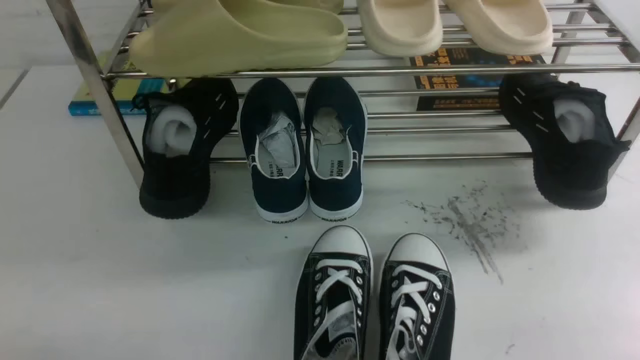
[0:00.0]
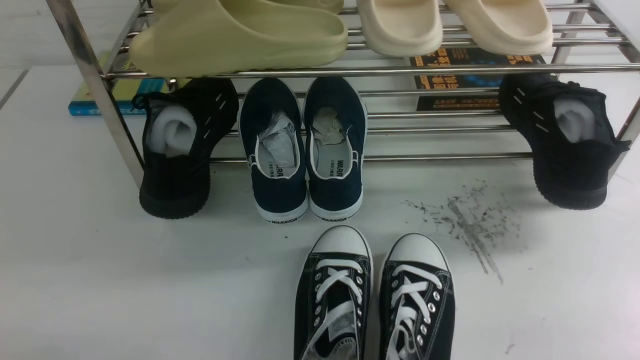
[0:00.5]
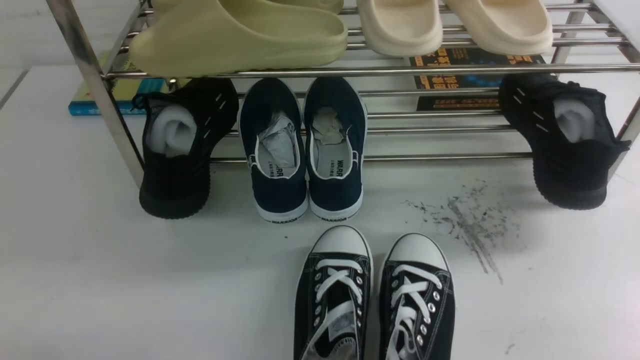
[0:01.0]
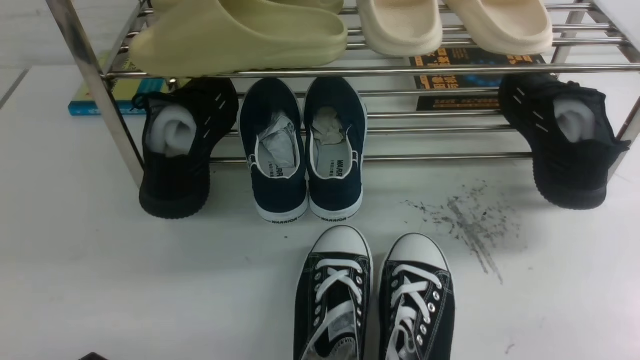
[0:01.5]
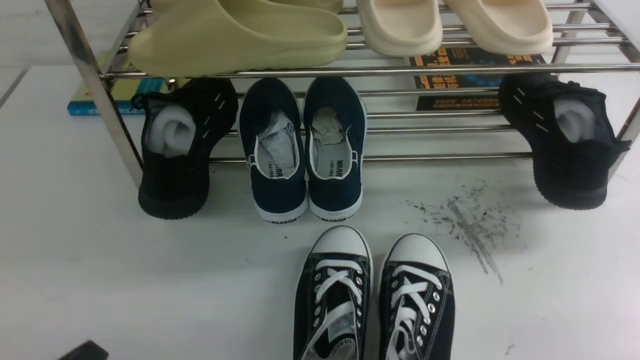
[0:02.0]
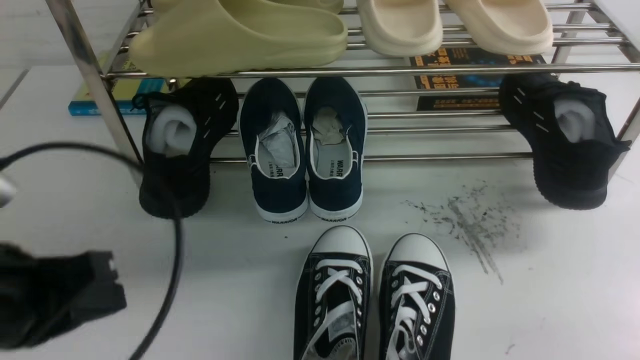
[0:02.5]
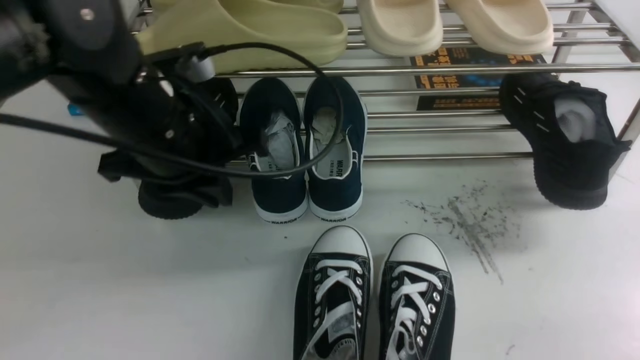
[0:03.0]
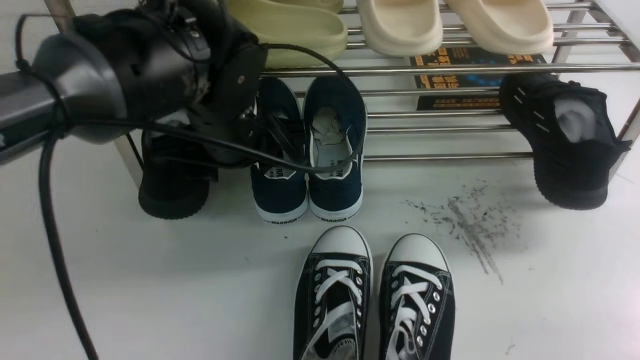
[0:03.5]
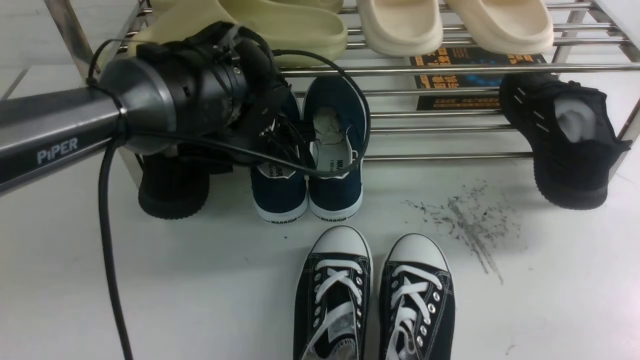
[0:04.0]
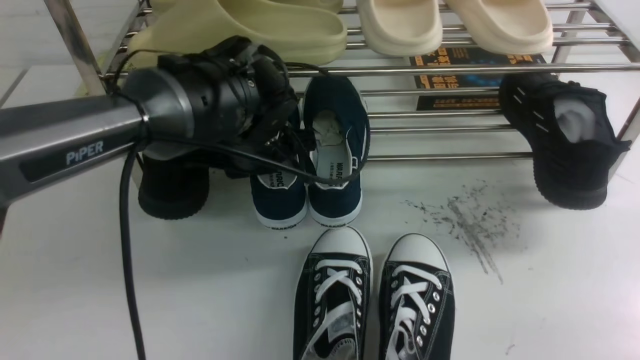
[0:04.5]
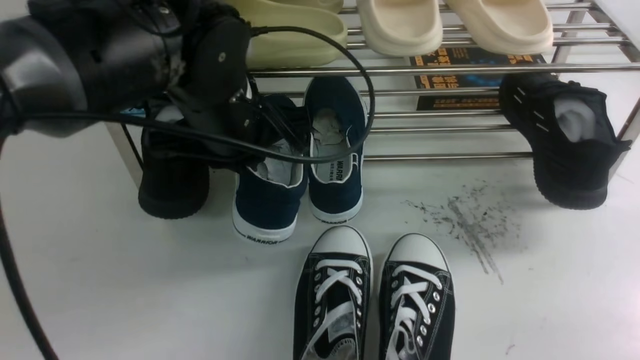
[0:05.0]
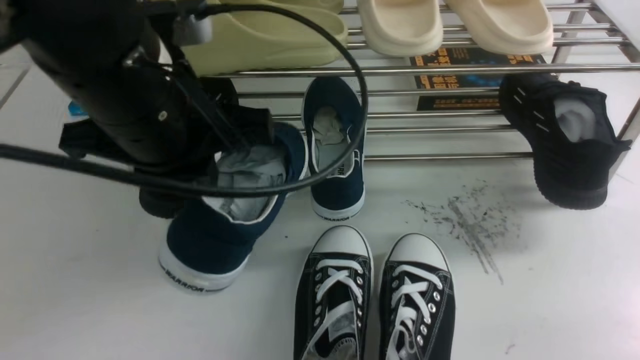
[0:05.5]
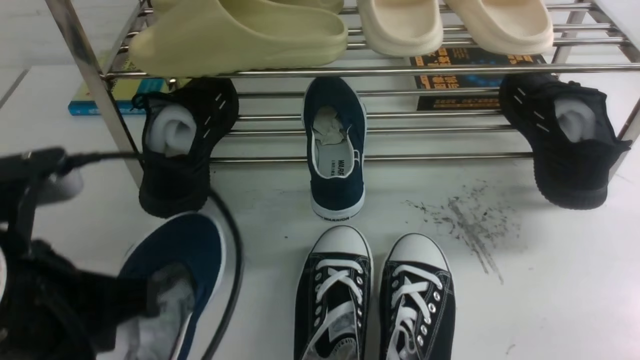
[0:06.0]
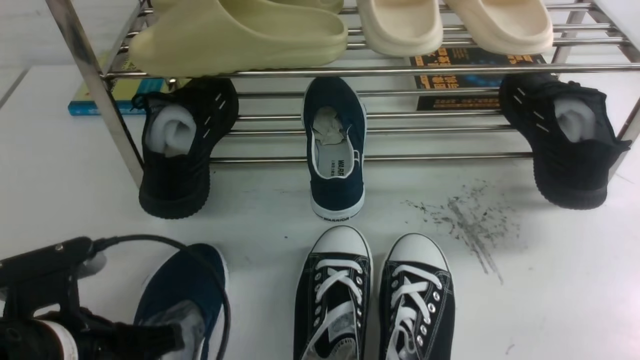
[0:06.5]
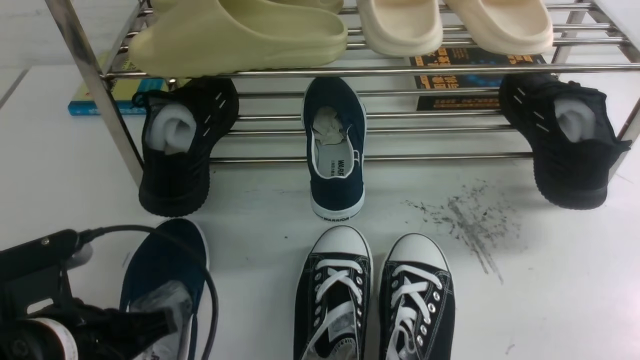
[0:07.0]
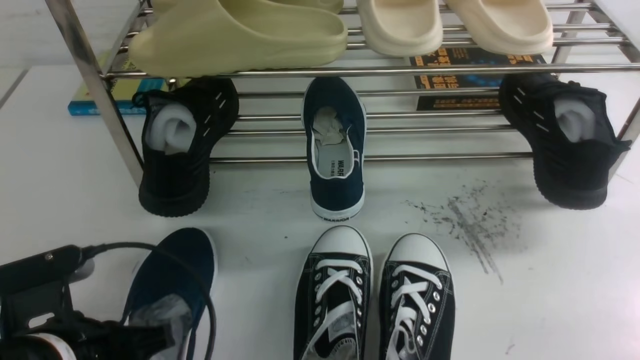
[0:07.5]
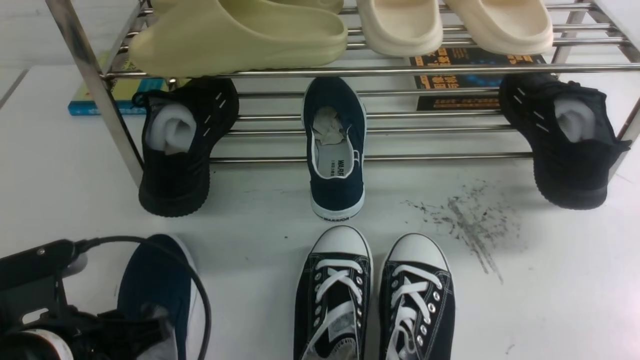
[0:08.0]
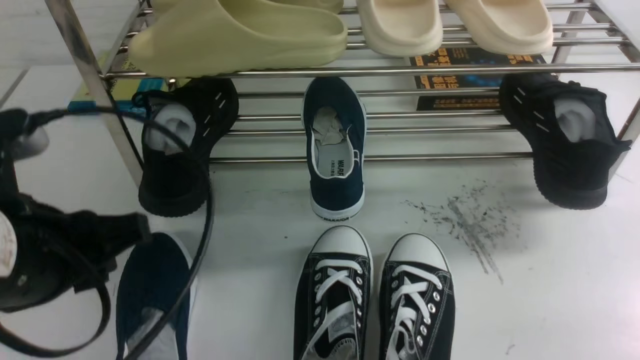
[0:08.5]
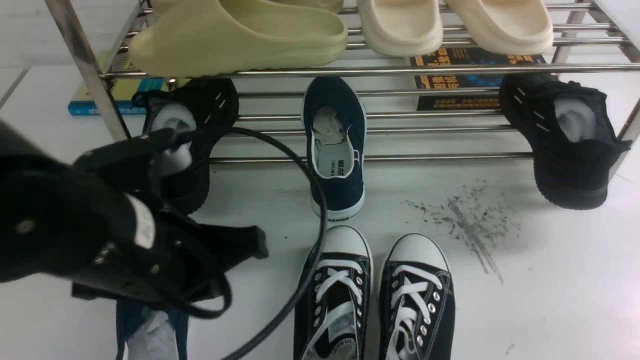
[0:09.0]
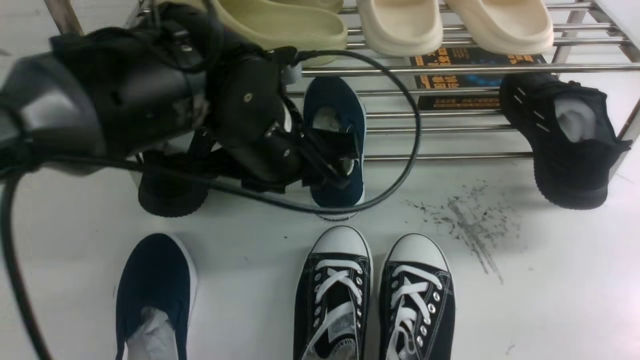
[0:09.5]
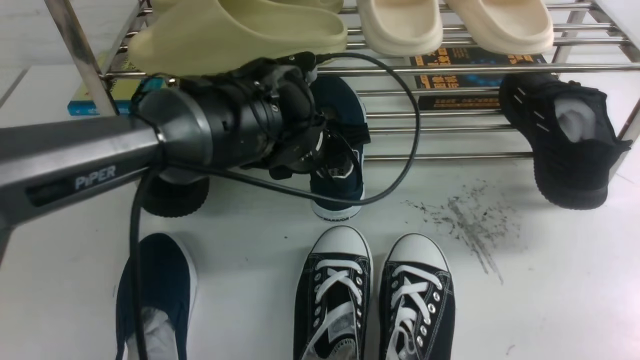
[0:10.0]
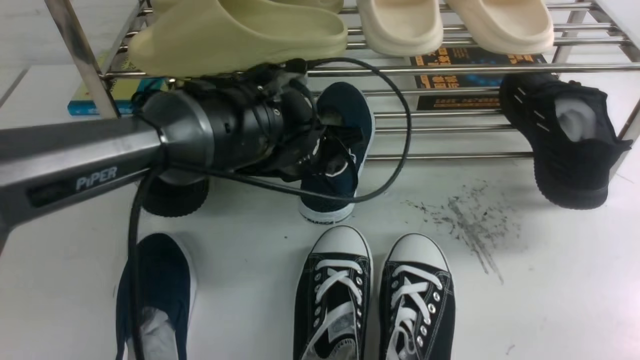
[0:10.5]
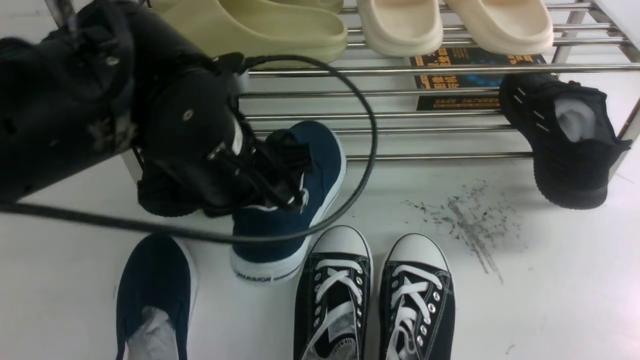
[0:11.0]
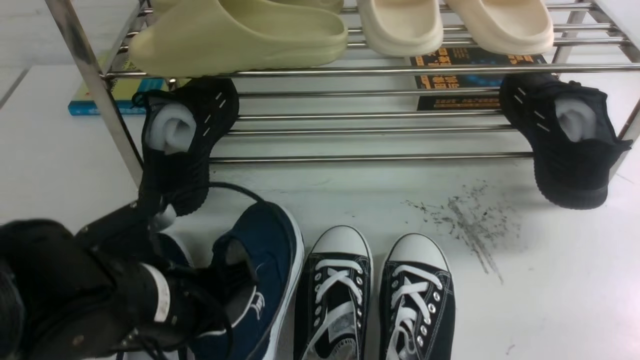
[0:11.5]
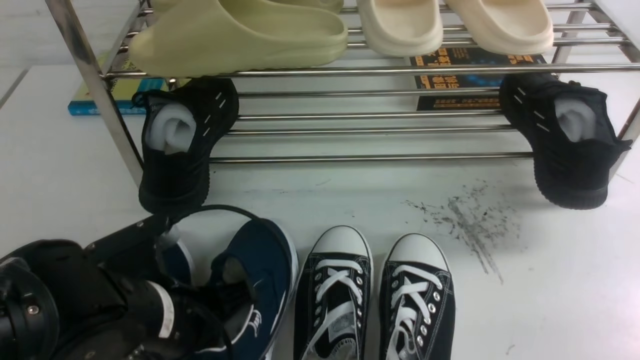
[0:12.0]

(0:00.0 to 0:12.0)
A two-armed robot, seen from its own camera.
Step, 0:00.0 - 0:04.5: use the left arm to clamp a shoe on the left side of the shoe rack.
Step, 0:05.0 - 0:08.0: Use your left arm to remove the clamped shoe from the shoe rack and put it down.
Step, 0:08.5 - 0:10.5: use the left arm to clamp a shoe in the middle of the shoe rack.
0:02.0 - 0:04.0: The left gripper travels forward and to the right by about 35 cm, and opens its fingers.
0:04.0 - 0:06.0: The left gripper travels backward and to the left by approximately 25 cm, and closes its fingers.
0:06.0 - 0:08.0: The left gripper heads downward, covering about 10 cm, and opens up.
0:08.0 - 0:10.0: The left gripper is displaced forward and to the right by roughly 25 cm, and closes and opens again.
0:10.0 - 0:12.0: The left gripper heads backward and to the left, covering about 20 cm, and closes.

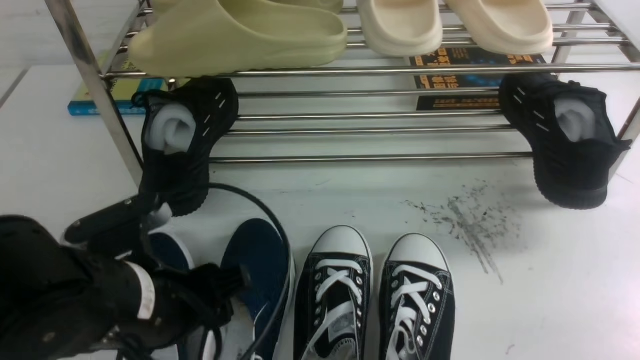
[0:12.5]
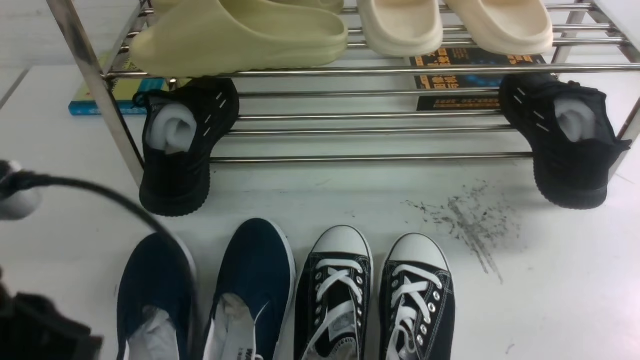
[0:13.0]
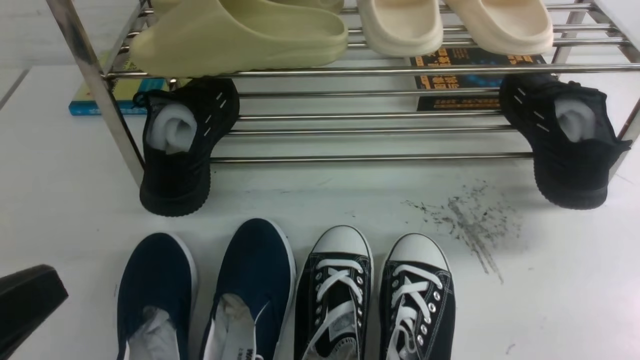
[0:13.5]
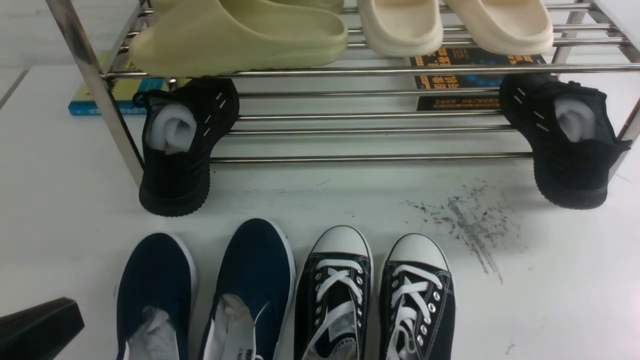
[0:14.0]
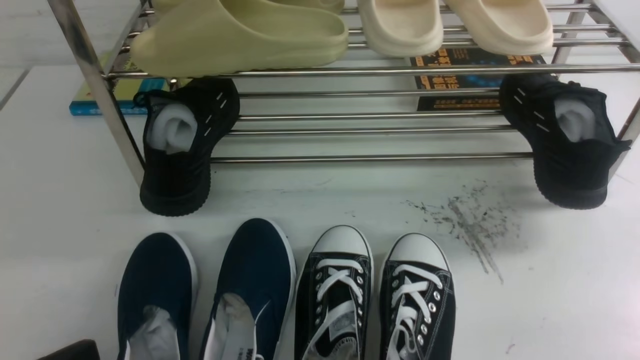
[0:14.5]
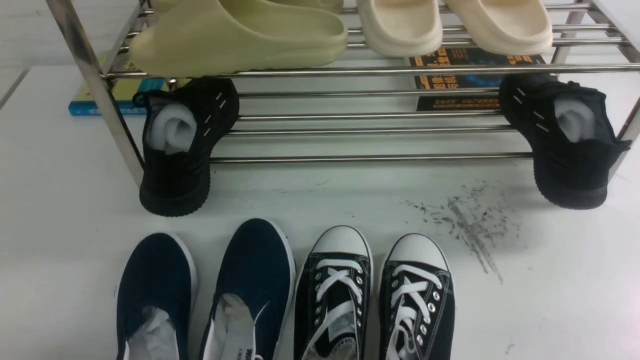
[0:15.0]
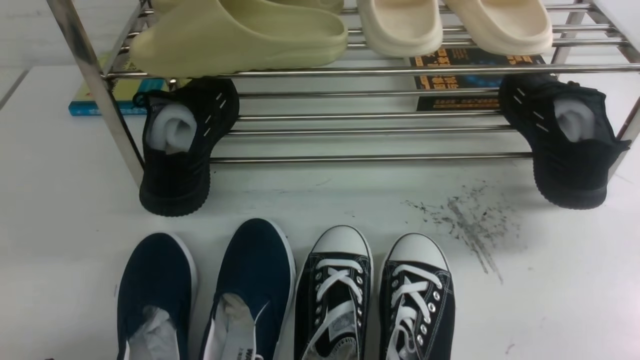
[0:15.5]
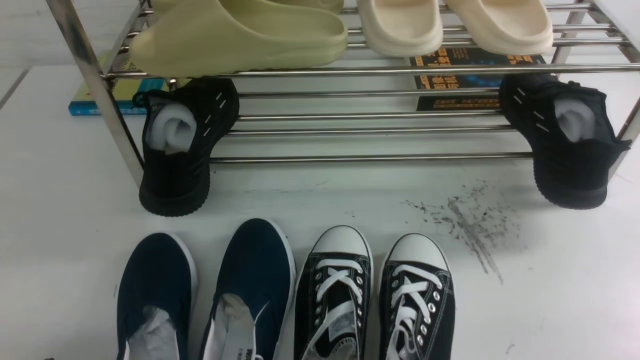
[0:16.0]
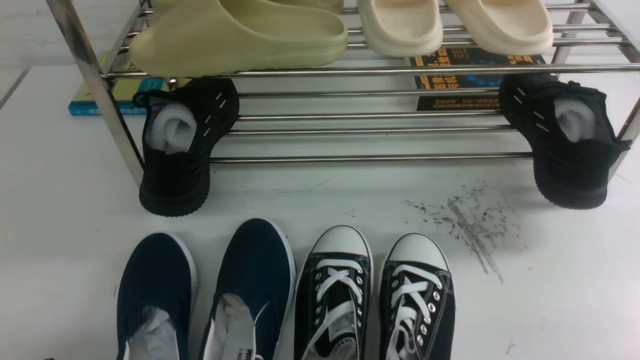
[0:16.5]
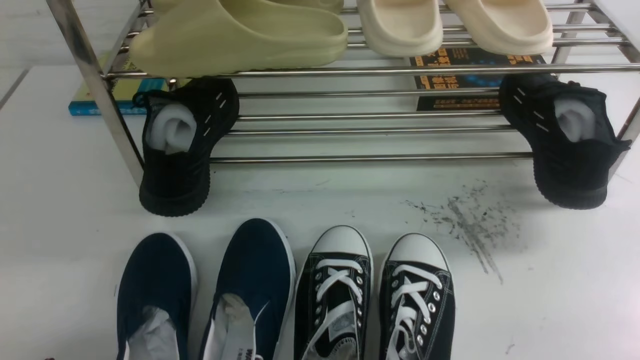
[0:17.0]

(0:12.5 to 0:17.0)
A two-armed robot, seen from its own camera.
0:12.5 - 0:14.5: The left gripper heads backward and to the left, covering roughly 15 cm, and closes its fingers.

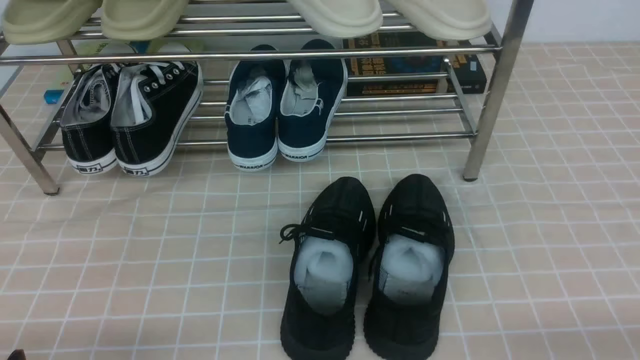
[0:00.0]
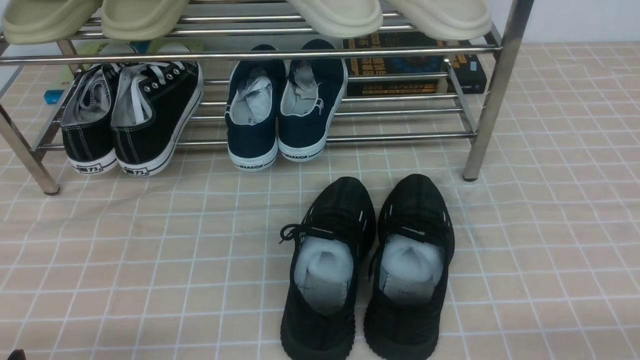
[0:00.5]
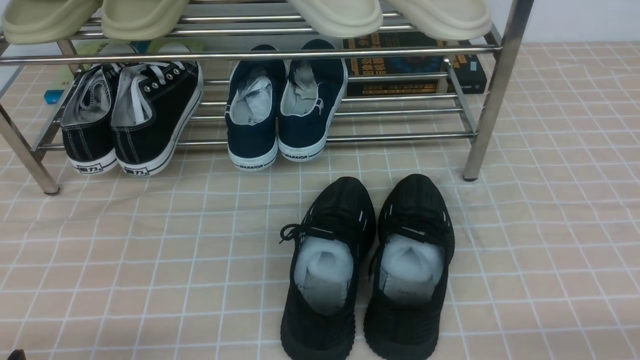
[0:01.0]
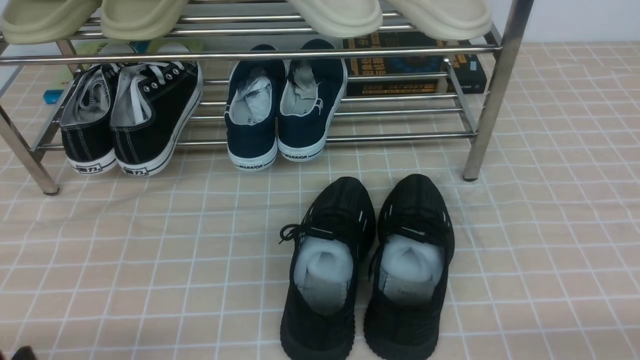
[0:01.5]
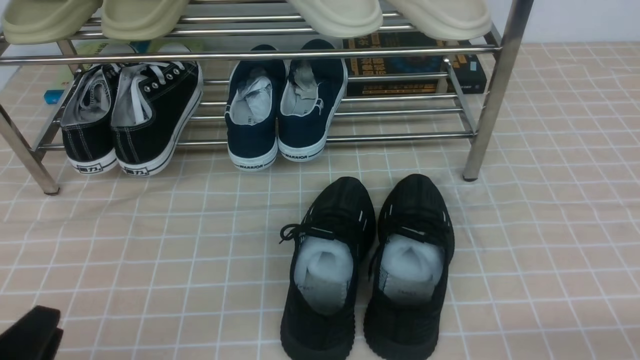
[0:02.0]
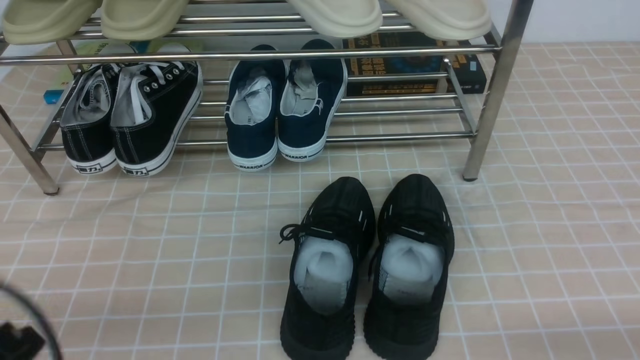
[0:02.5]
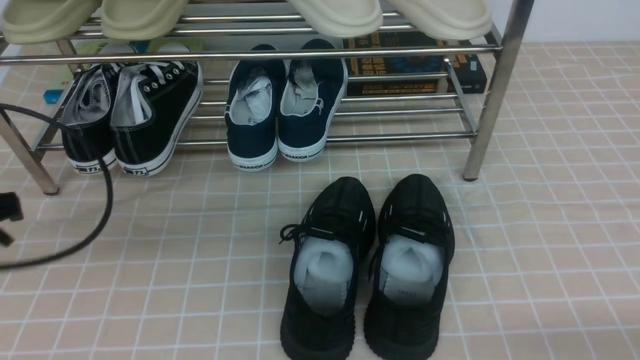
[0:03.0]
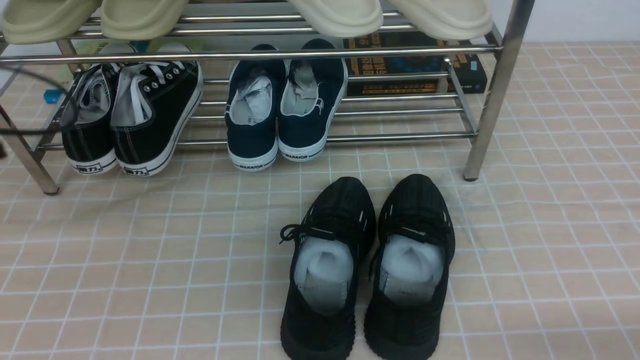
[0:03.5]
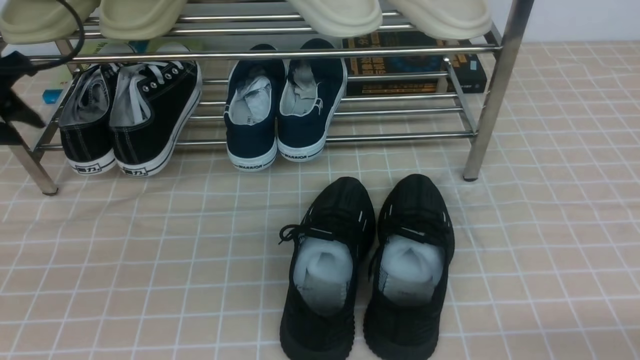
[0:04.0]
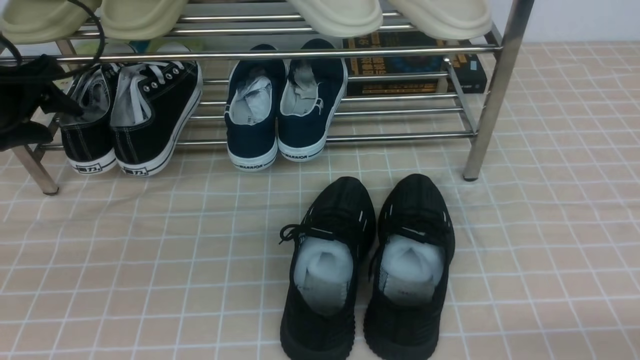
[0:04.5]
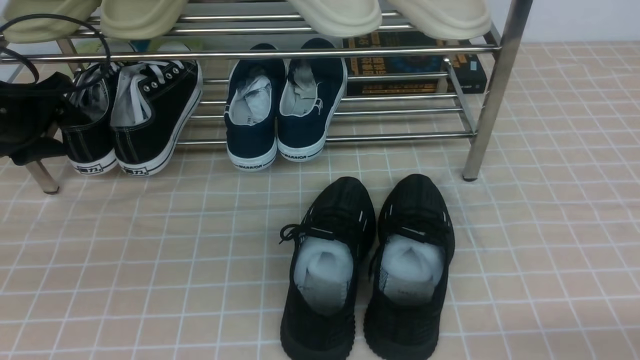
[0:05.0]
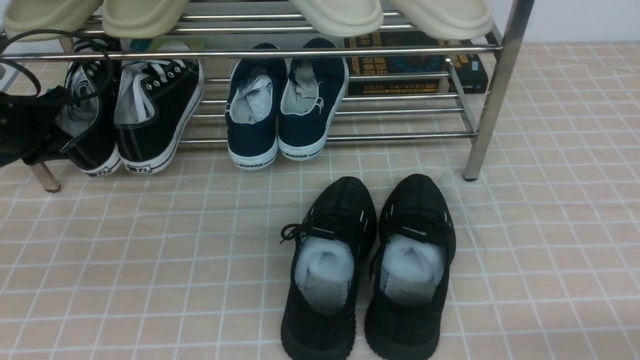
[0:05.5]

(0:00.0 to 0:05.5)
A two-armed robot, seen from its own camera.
Step, 0:00.0 - 0:05.5: use the left arm to clamp a shoe on the left side of the shoe rack.
0:02.0 - 0:03.5: The left gripper moves forward, upward and to the left, roughly 30 cm, and closes.
0:03.5 - 0:05.5: The left gripper is displaced forward and downward by about 10 cm, and opens, then closes again.
